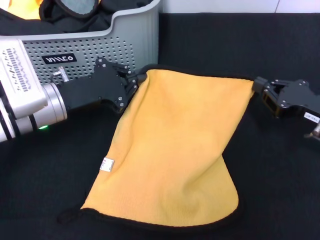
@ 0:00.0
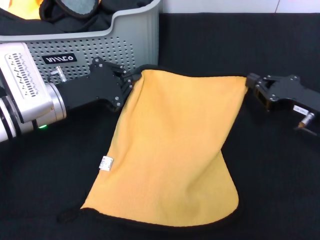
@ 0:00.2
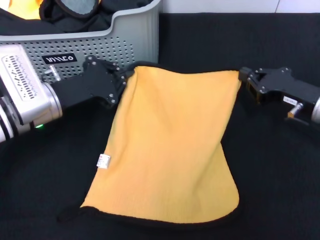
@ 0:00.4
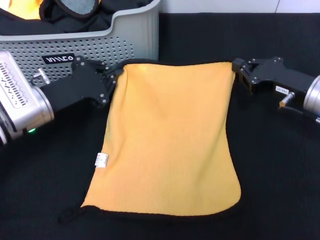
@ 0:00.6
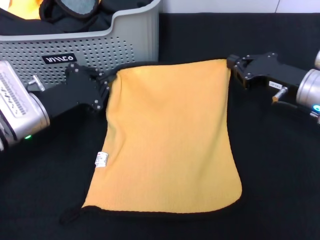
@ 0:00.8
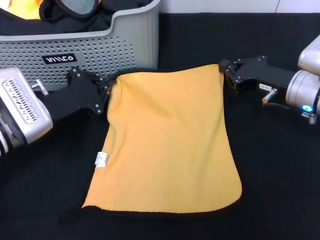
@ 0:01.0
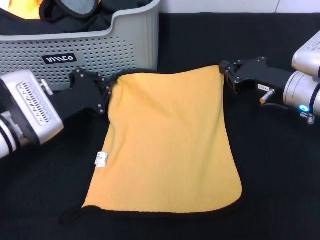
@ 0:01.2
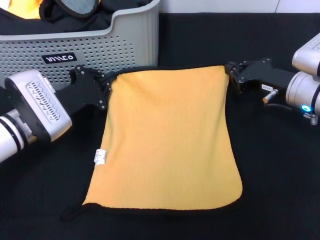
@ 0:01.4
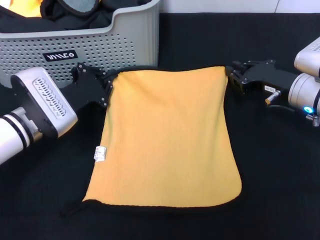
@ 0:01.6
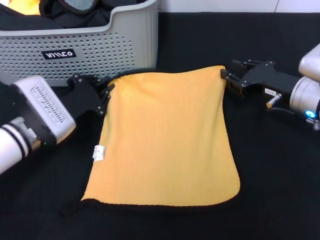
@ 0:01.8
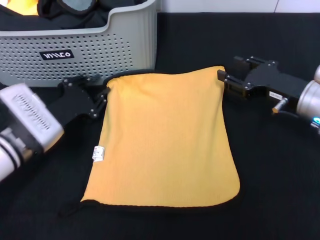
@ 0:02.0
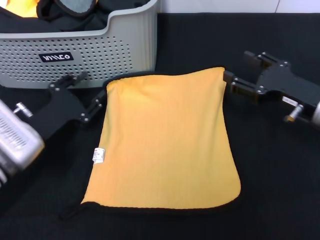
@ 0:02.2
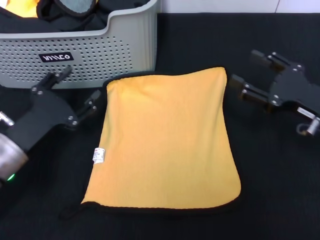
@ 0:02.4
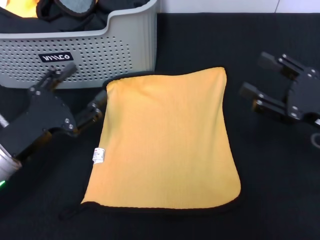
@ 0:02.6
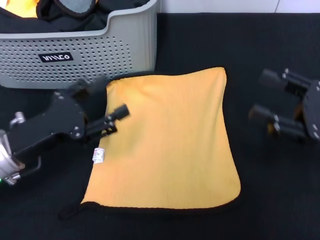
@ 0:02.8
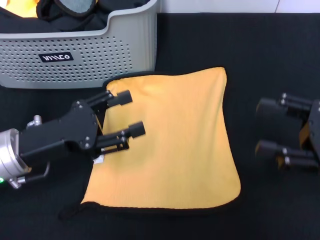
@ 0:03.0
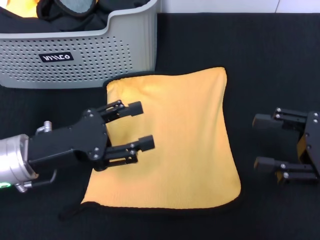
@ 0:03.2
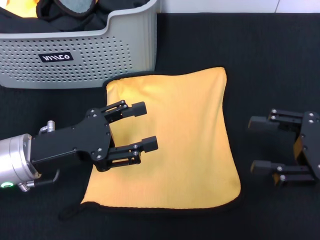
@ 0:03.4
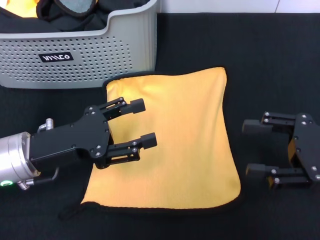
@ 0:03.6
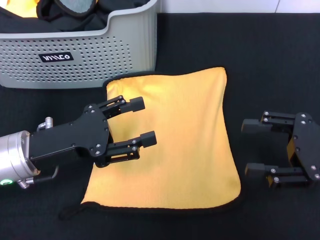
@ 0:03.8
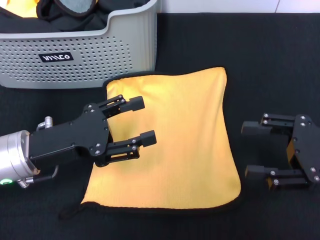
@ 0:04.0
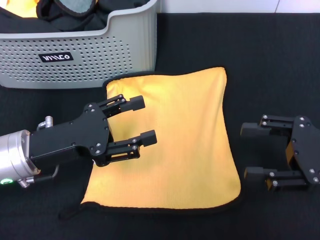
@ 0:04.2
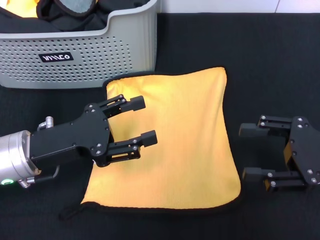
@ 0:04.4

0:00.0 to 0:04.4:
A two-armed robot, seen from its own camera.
Task of the whole recording: pick up the towel from the storage box and lay it flat on the black tablecloth.
0:00.0 to 0:01.4: The right gripper moves forward and to the left, about 10 cm.
0:01.4 to 0:03.0: The right gripper goes about 15 cm backward and to the right, and opens up. Meanwhile the left gripper goes roughly 10 cm backward and upward, and opens its fingers.
0:03.0 to 0:04.4: The grippers stay close to where they were, moving slightly.
